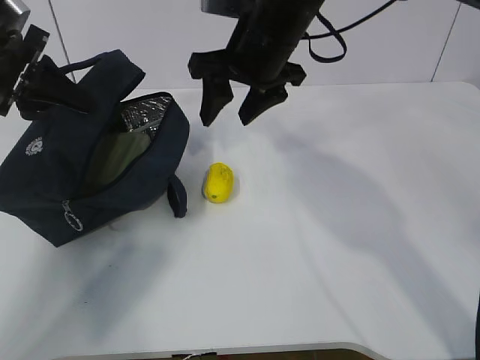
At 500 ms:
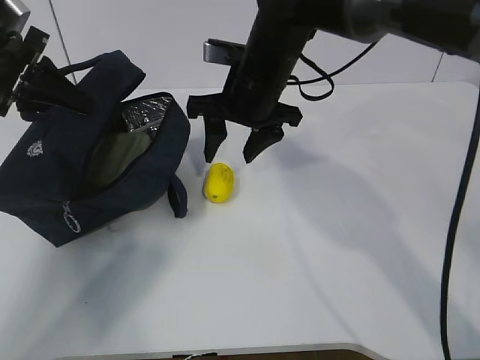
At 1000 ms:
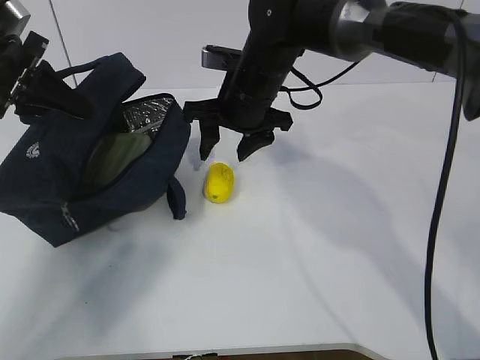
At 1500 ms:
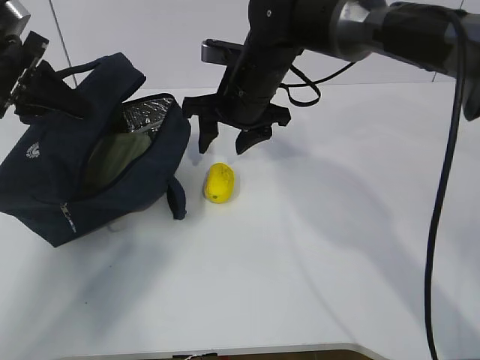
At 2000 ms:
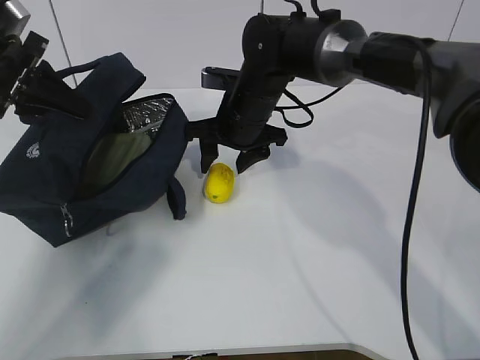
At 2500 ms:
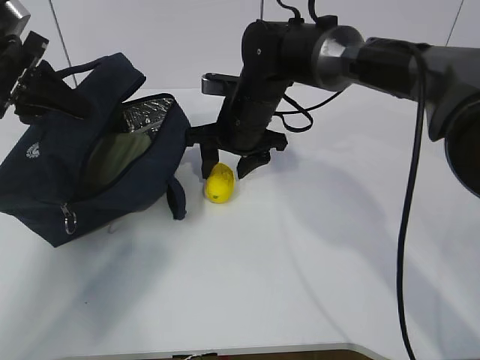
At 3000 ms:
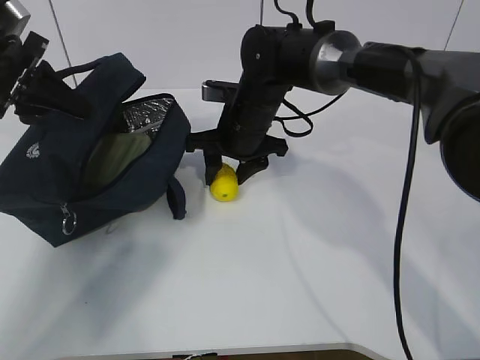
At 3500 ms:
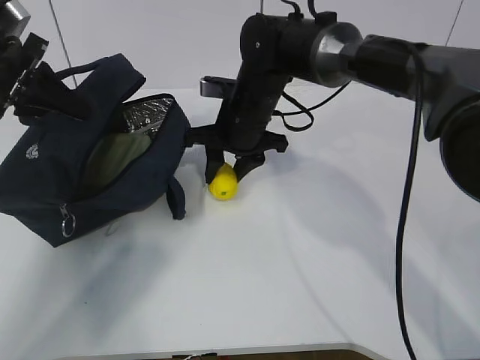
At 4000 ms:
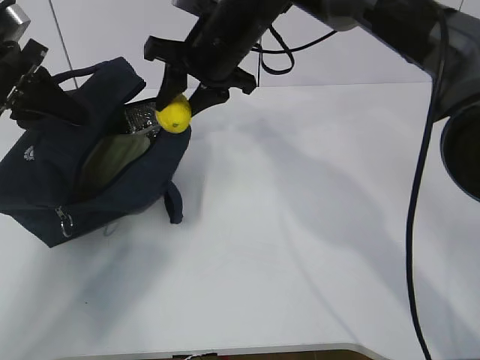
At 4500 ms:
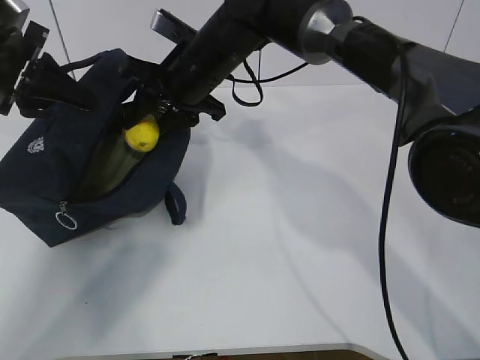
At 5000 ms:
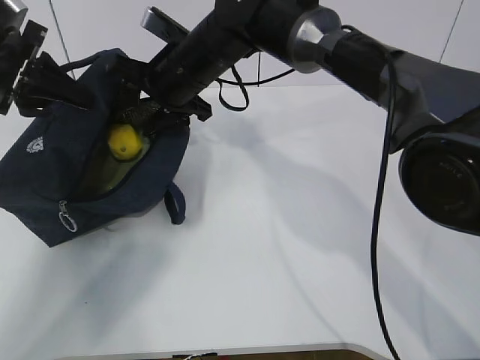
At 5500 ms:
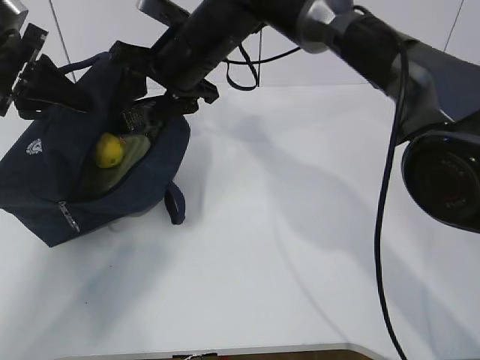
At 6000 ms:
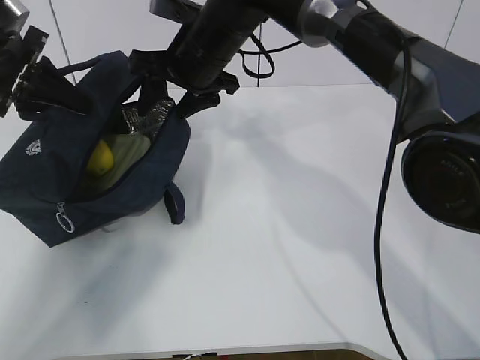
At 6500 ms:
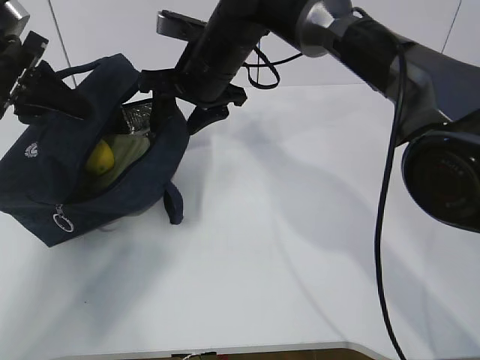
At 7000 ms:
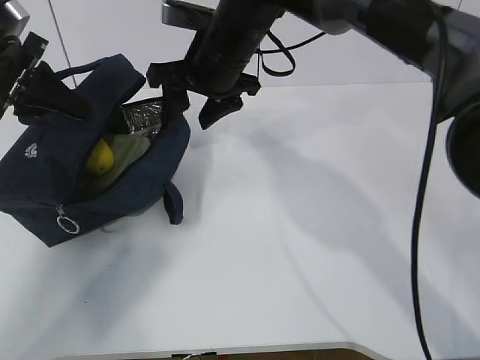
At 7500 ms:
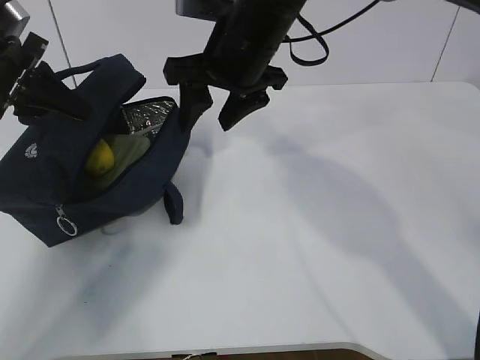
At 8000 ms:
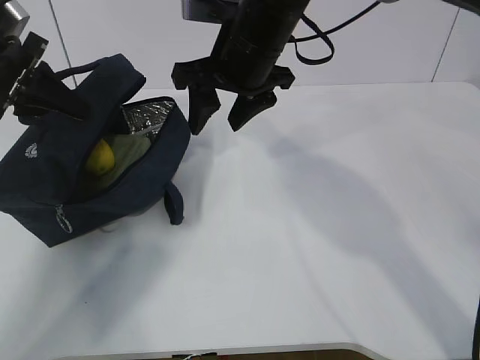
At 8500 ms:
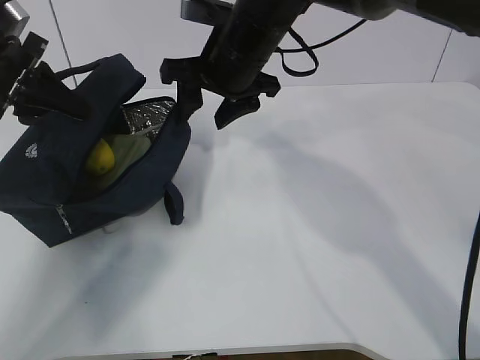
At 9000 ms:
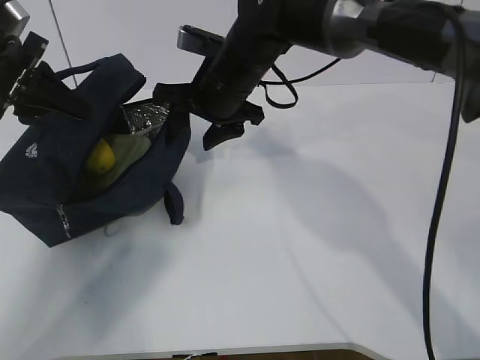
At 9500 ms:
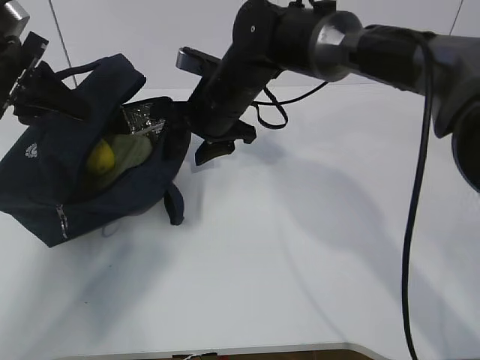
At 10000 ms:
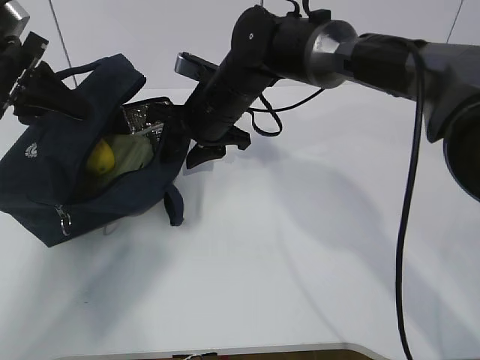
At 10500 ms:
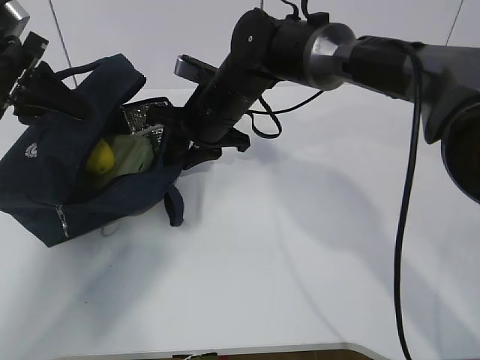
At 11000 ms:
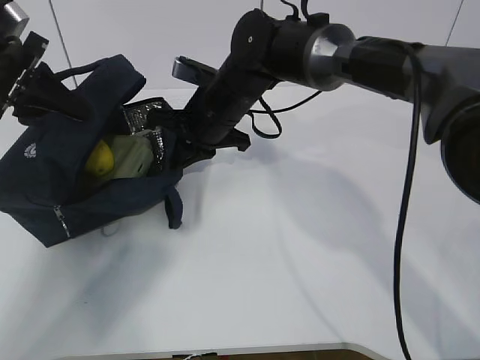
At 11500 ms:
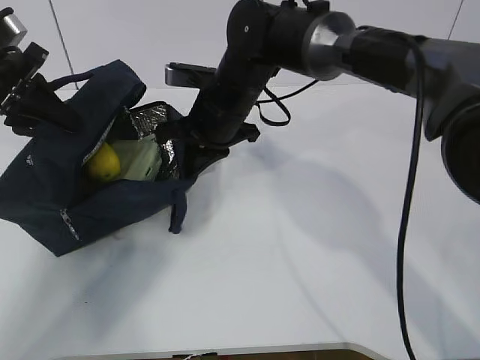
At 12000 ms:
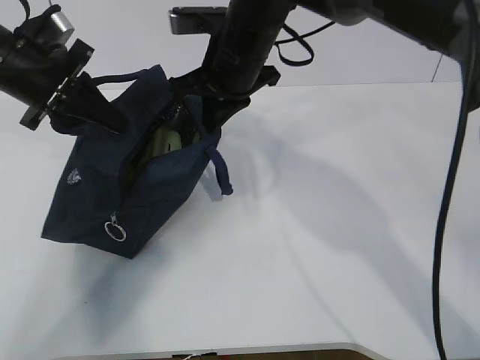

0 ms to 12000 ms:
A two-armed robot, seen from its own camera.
Step, 0 ms to 4000 ms: Grab the lunch bag with your right hand.
Step, 4500 ms to 7000 ms: Stand the lunch bag upright with your right hand.
0 ms to 2000 ms: The right gripper goes some 10 cm downward.
2000 ms to 4000 ms: The right gripper heads upward, covering about 10 cm.
6000 ms to 8000 ms: The right gripper changes place by some 5 cm.
8000 ms to 10000 ms: The right gripper goes about 10 cm downward.
10000 ms to 12000 ms: The right gripper travels upward by some 5 cm, and closes its fingers.

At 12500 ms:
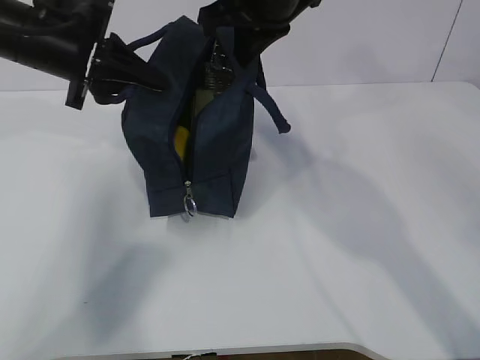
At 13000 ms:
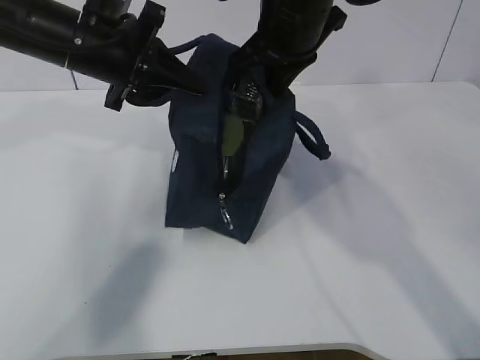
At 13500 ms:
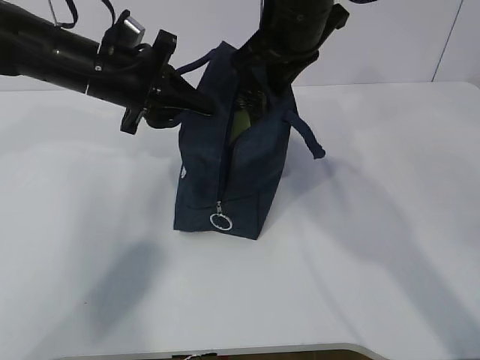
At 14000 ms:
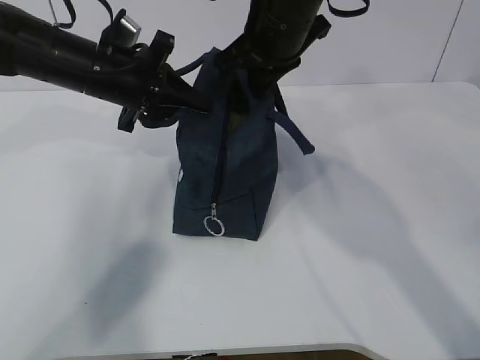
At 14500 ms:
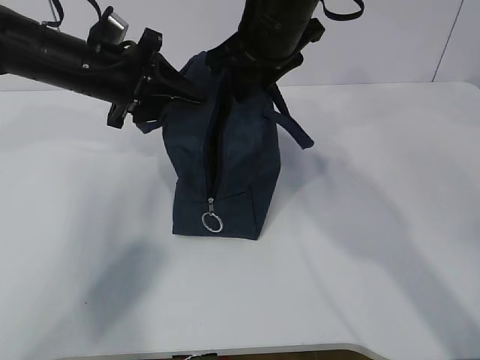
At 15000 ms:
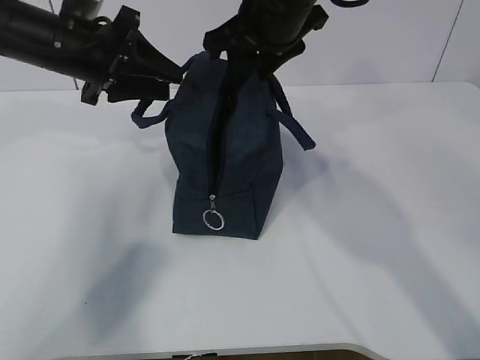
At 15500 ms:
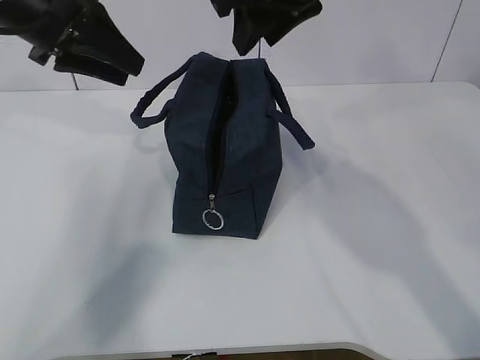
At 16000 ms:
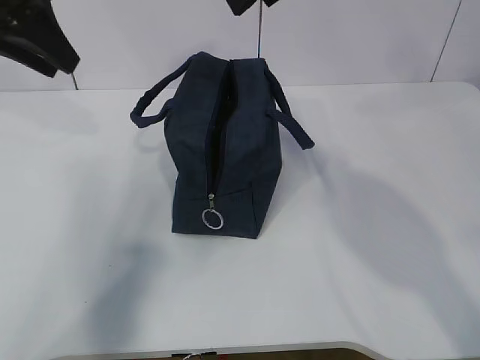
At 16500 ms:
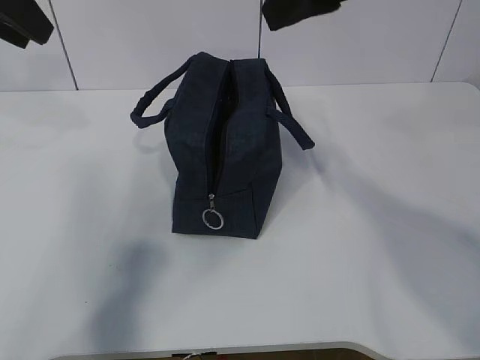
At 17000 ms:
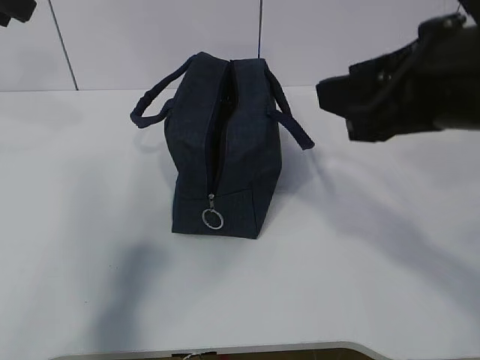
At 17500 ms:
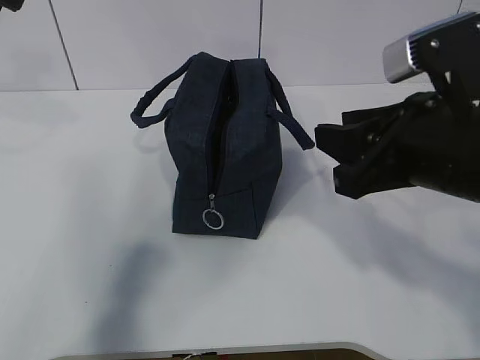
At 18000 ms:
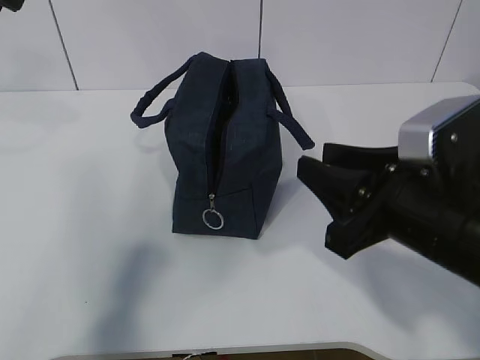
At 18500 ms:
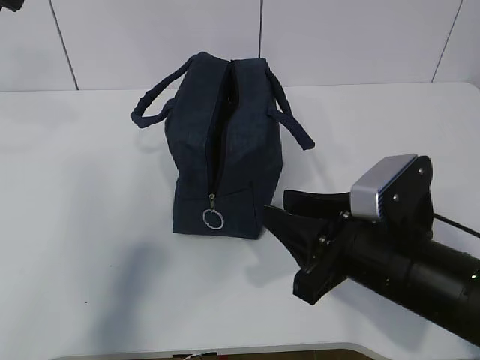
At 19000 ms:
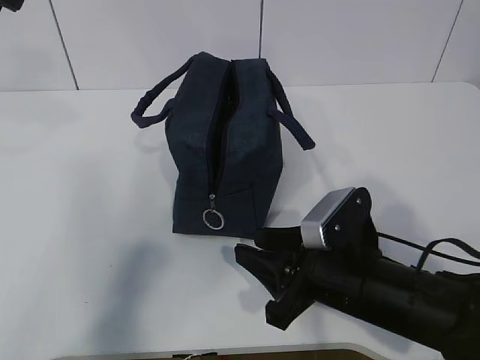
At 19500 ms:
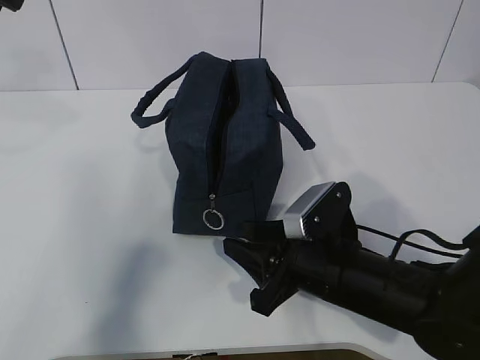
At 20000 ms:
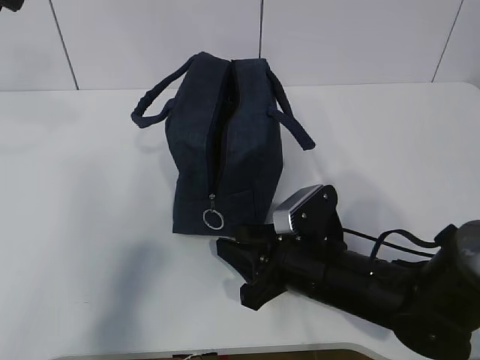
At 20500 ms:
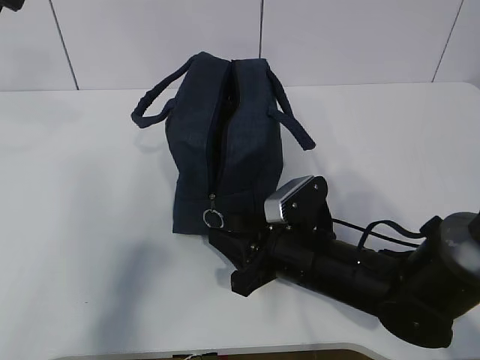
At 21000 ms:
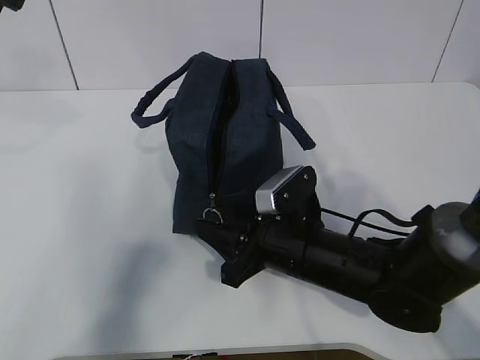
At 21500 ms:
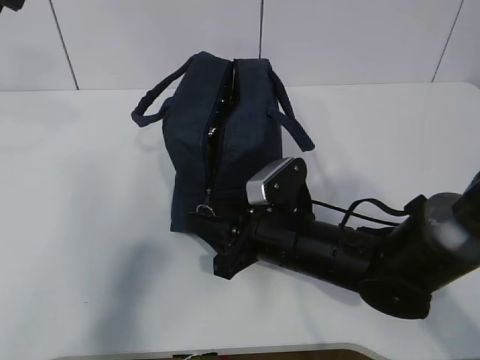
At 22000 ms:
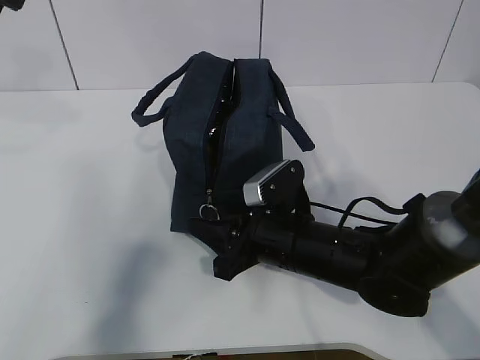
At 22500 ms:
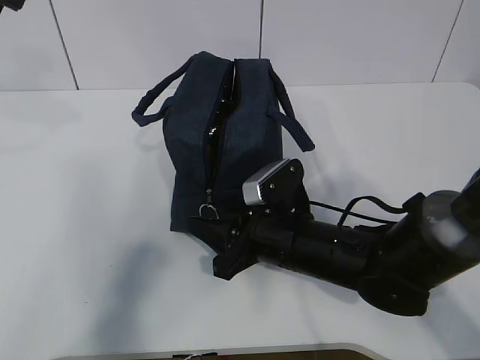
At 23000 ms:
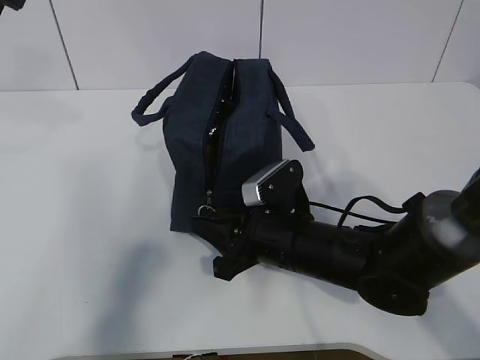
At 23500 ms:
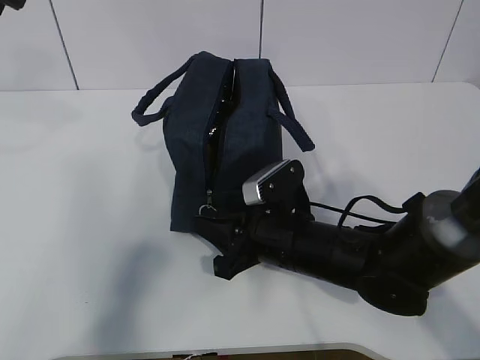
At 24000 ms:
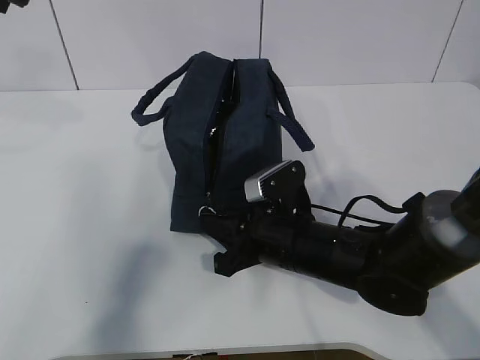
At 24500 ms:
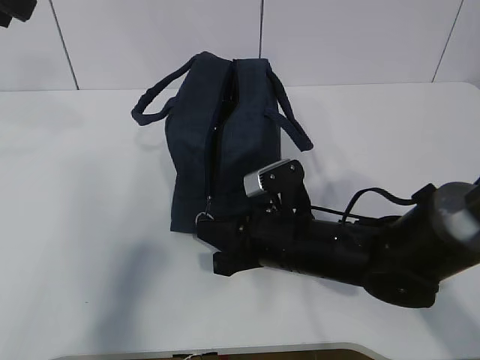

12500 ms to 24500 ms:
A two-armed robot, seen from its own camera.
Step, 12500 ms to 21000 ms: Grab the lunch bag with your left hand.
12500 ms to 14500 ms: The left gripper changes place by about 5 cm, and opens; the right gripper opens its fingers.
14500 ms to 16500 ms: The right gripper moves backward, upward and to the right, some 15 cm, while the left gripper moves upward, to the left and backward, approximately 20 cm.
16500 ms to 18500 ms: The right gripper is displaced downward by roughly 25 cm.
18500 ms to 20500 ms: The right gripper goes some 10 cm downward and forward.
20500 ms to 22500 ms: The grippers stay close to where they were, moving slightly.
22500 ms to 24500 ms: The right gripper closes up.

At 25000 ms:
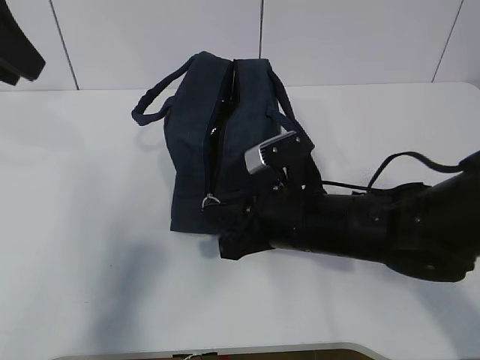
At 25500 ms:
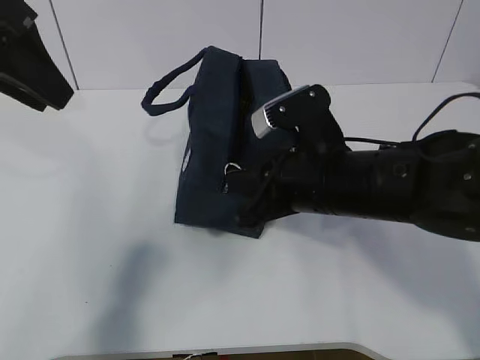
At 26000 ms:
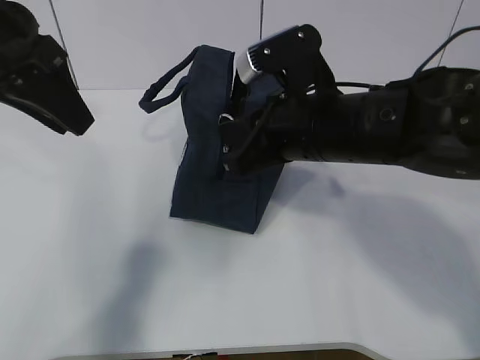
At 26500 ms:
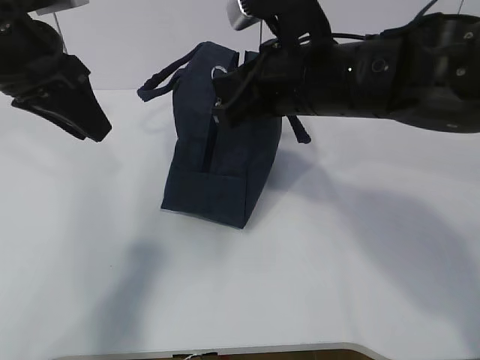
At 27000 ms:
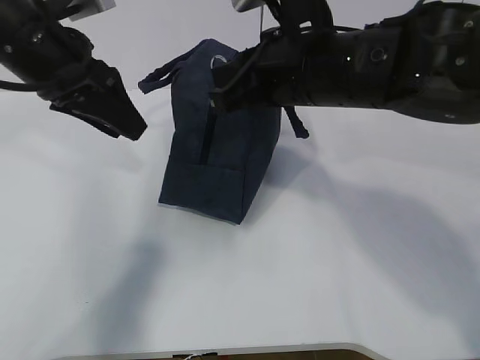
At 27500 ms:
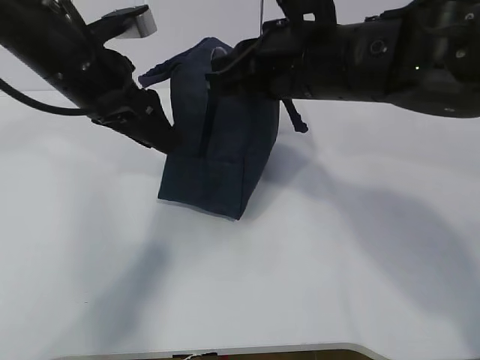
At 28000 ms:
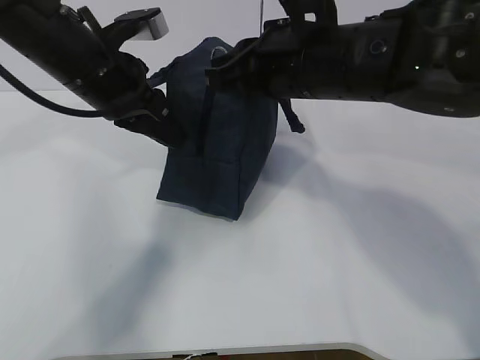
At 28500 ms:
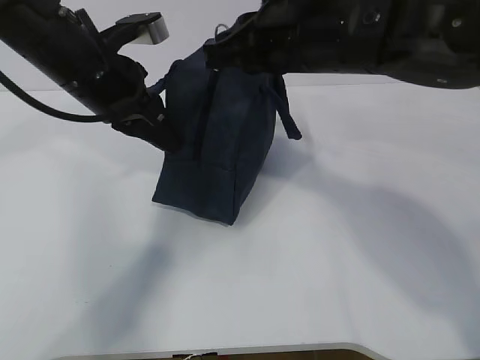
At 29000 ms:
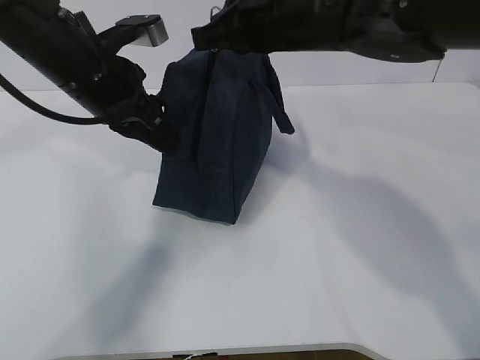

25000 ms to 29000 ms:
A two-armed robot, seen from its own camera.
25000 ms to 27000 ms: The right gripper moves upward, about 15 cm, while the left gripper is displaced downward and to the right by some 10 cm.
27000 ms to 29000 ms: The right gripper changes place by approximately 5 cm; the left gripper ends up about 5 cm from where it was, and closes its fingers.
